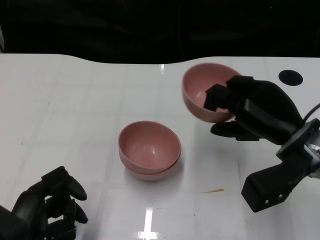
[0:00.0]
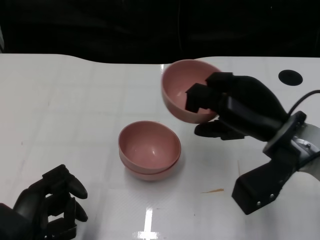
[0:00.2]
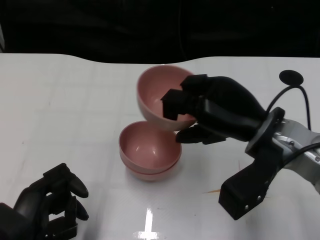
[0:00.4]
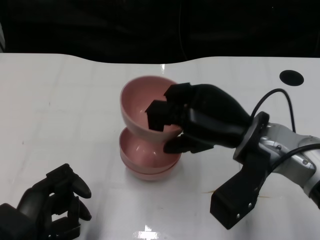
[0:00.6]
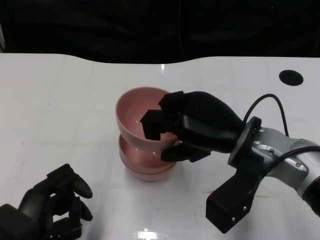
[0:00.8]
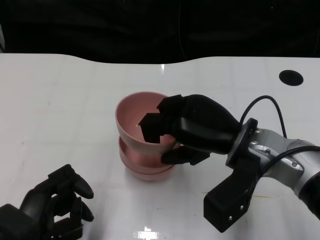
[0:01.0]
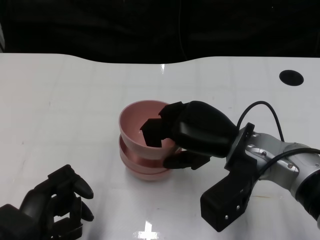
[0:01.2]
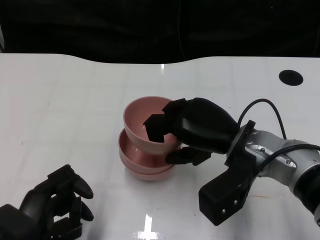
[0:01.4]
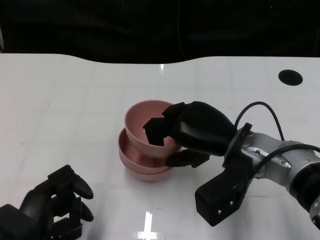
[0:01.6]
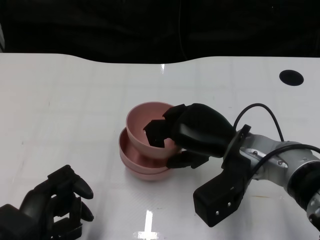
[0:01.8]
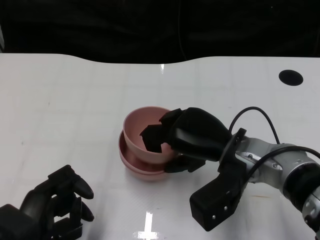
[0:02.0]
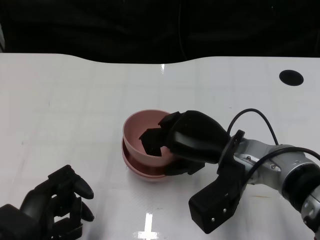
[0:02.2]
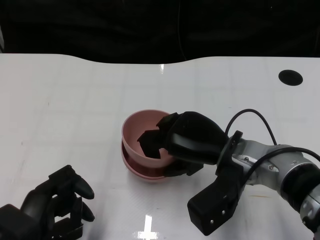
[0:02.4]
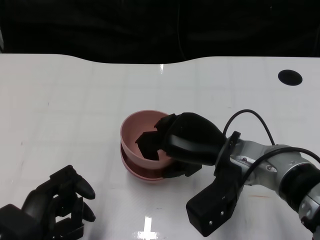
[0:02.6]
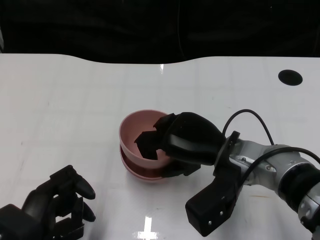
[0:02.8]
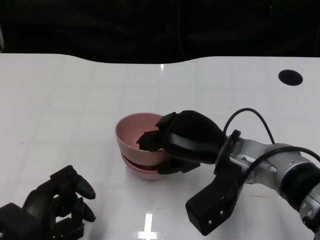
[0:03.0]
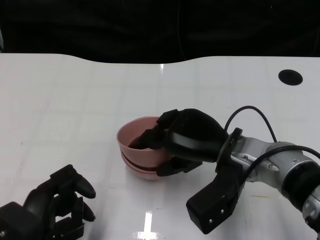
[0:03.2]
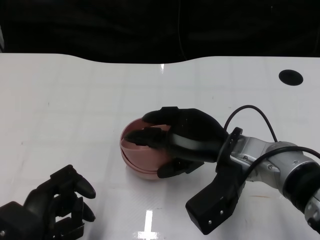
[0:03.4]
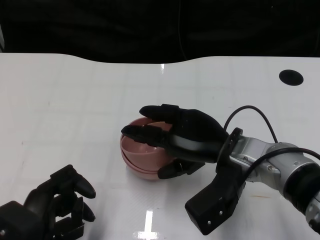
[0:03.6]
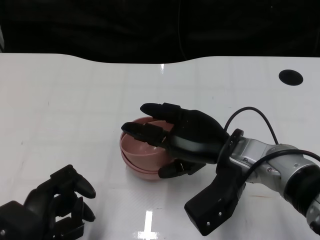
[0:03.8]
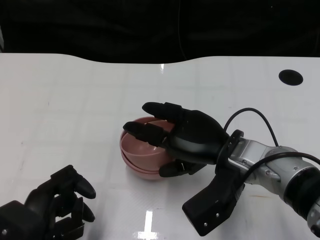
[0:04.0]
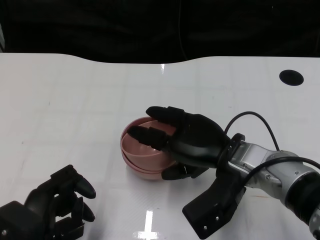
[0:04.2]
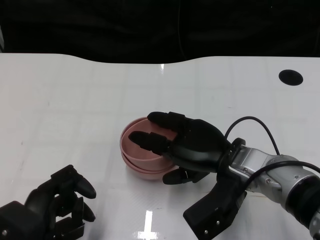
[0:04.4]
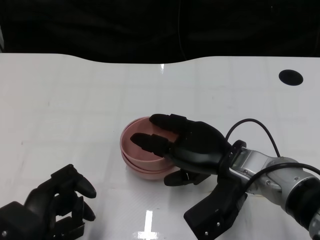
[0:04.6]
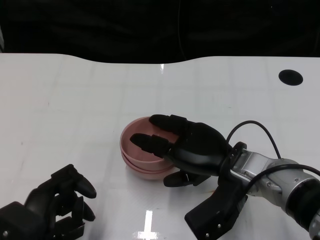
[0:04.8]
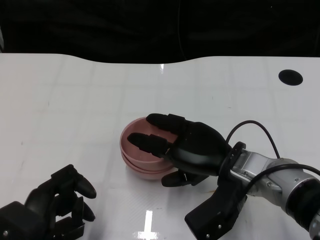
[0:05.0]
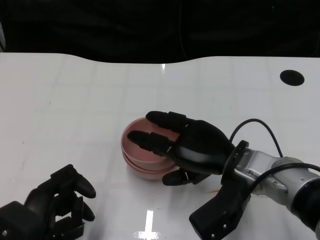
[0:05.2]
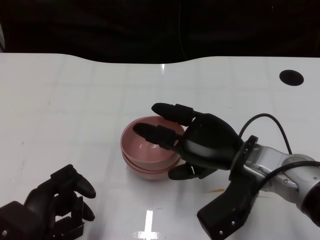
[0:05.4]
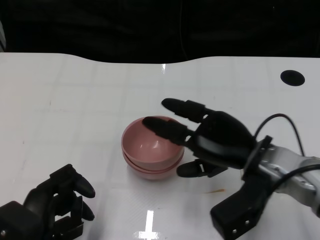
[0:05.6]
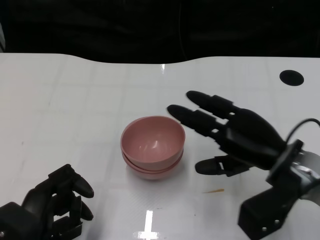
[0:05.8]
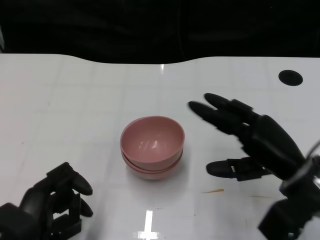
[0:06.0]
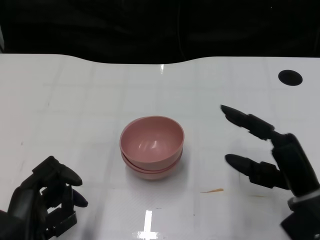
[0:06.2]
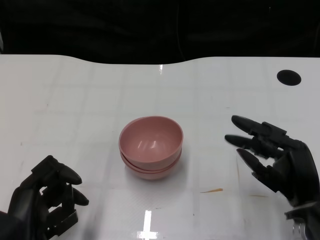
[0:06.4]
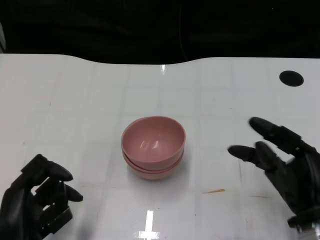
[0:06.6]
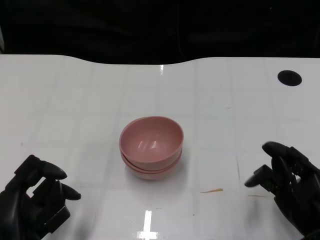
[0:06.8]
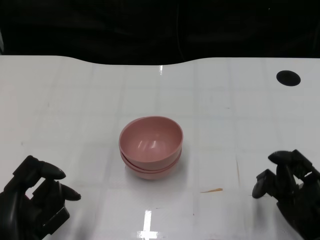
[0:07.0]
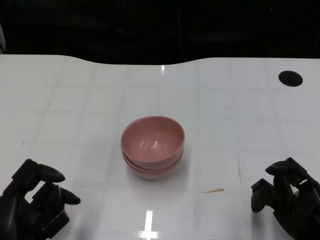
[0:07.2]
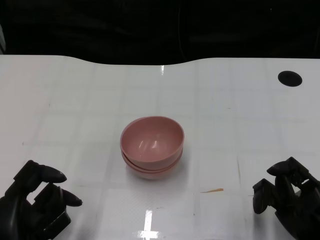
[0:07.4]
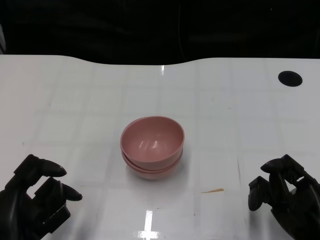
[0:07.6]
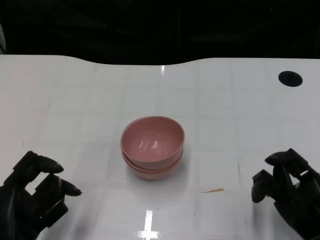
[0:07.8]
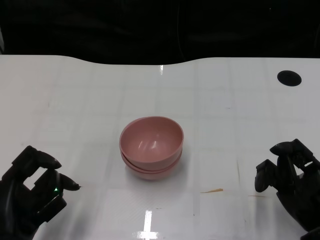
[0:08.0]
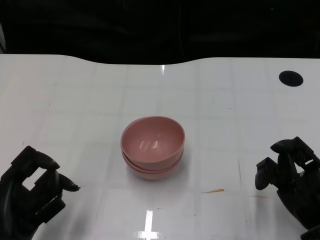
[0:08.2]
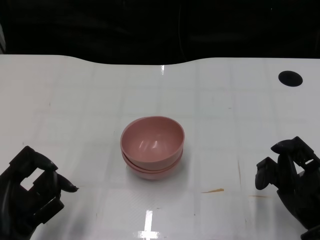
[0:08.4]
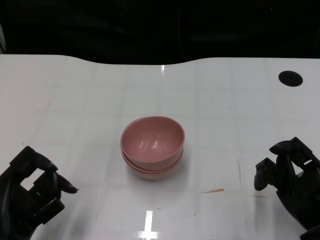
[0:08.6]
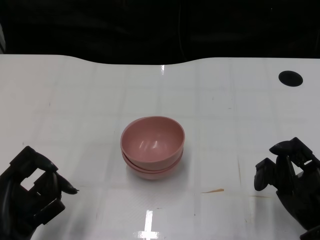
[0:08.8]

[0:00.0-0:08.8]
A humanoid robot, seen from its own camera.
Task of the whole recording: Pick up the bowl on one side of the table and place it on top of the middle bowl, then pick up the bowl on the other side of the table and place it on top of the middle bowls.
Step, 0:00.0 to 0:05.4: Place the bowl on the right onto the bowl in the middle with right gripper.
0:00.0 to 0:01.4: The right hand is displaced to the left by approximately 10 cm.
0:01.4 to 0:04.4: There are only small adjustments of the hands.
0:04.4 to 0:05.8: The right hand moves to the right, about 5 cm.
0:05.8 to 0:07.4: The right hand shifts approximately 15 cm backward, downward and to the right.
0:07.4 to 0:08.8: The hands make only small movements.

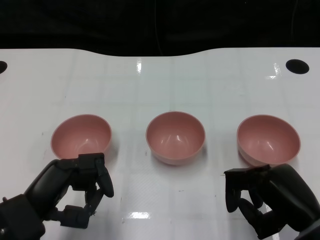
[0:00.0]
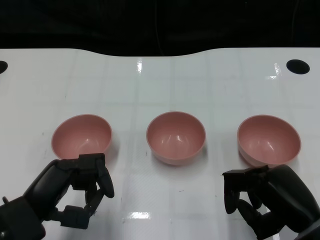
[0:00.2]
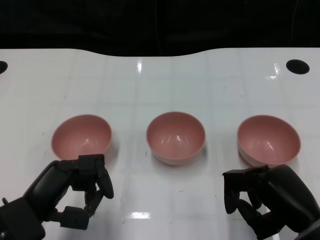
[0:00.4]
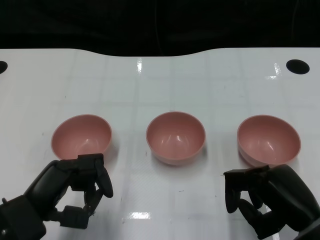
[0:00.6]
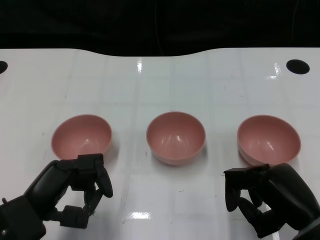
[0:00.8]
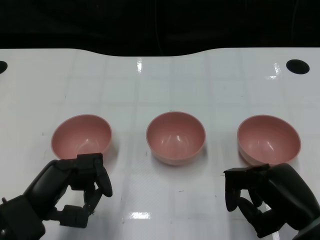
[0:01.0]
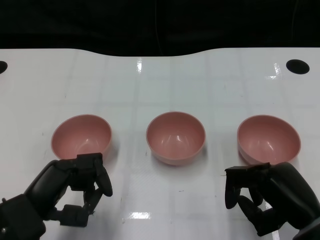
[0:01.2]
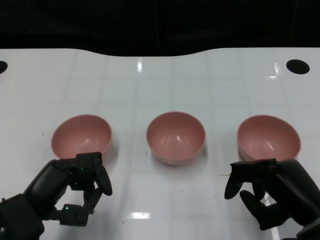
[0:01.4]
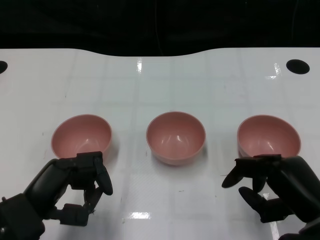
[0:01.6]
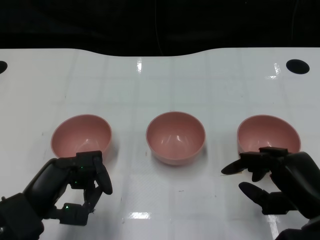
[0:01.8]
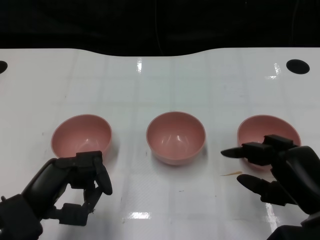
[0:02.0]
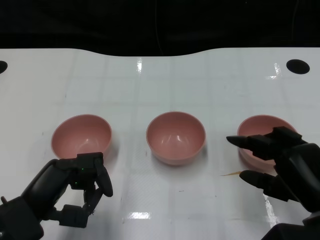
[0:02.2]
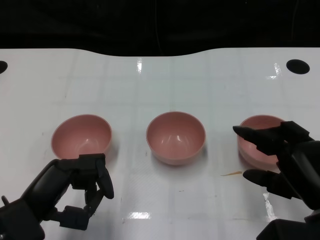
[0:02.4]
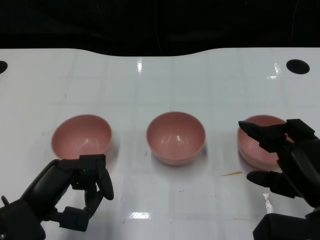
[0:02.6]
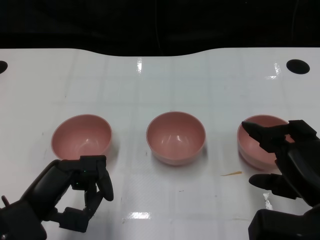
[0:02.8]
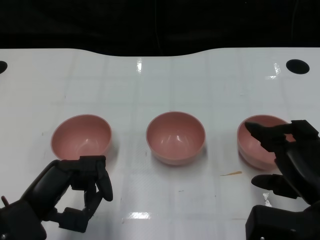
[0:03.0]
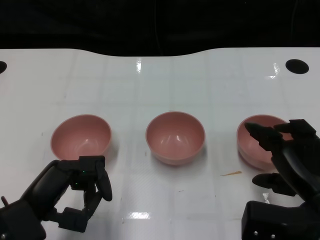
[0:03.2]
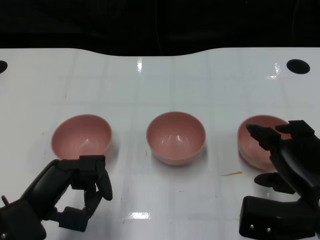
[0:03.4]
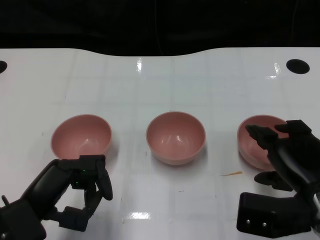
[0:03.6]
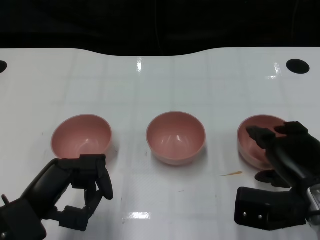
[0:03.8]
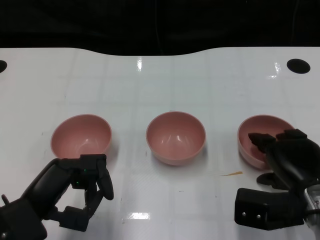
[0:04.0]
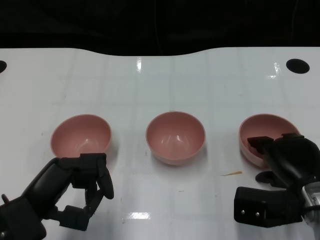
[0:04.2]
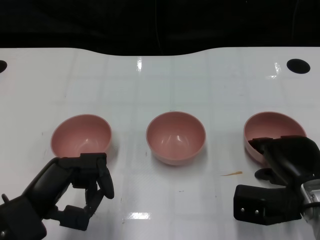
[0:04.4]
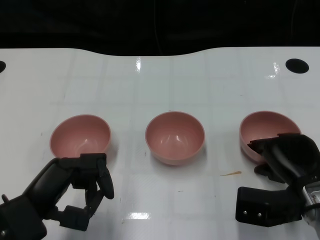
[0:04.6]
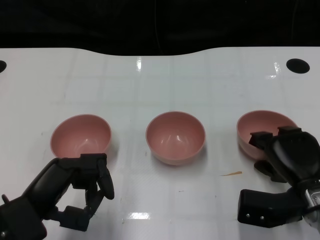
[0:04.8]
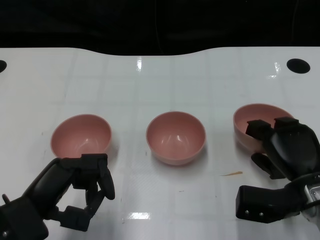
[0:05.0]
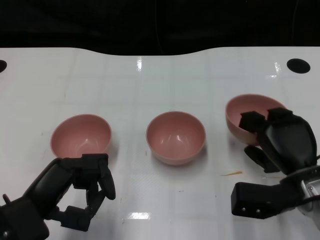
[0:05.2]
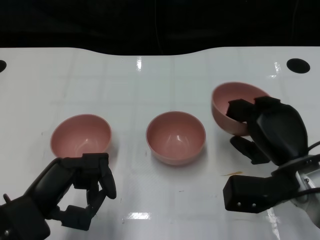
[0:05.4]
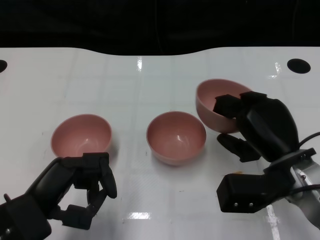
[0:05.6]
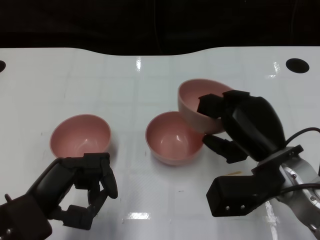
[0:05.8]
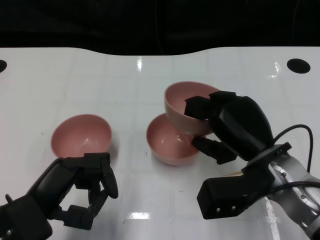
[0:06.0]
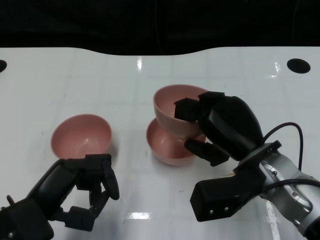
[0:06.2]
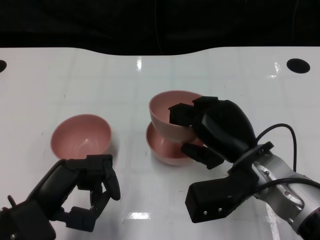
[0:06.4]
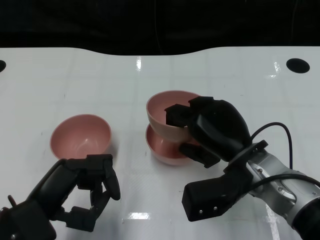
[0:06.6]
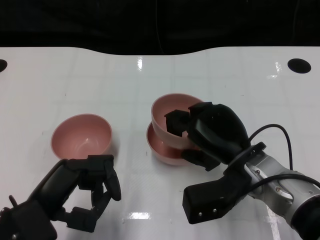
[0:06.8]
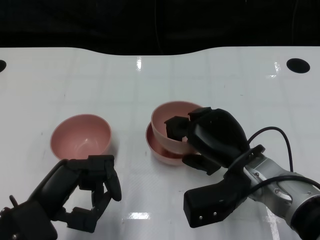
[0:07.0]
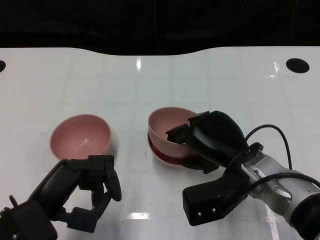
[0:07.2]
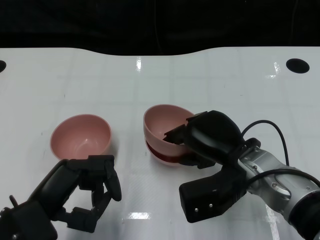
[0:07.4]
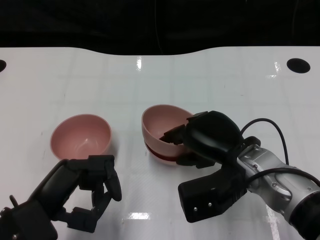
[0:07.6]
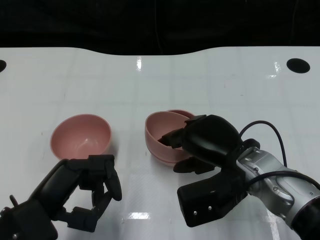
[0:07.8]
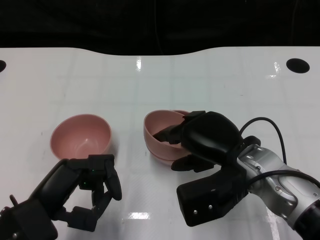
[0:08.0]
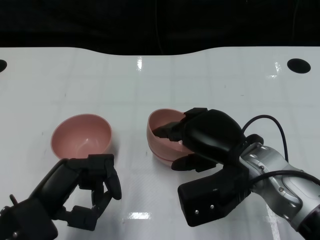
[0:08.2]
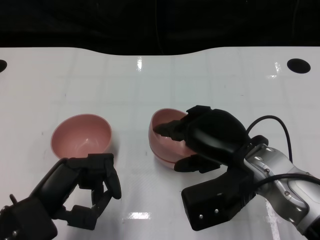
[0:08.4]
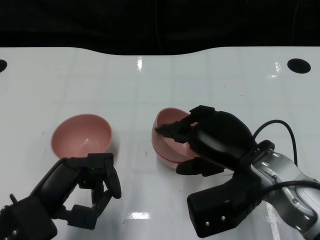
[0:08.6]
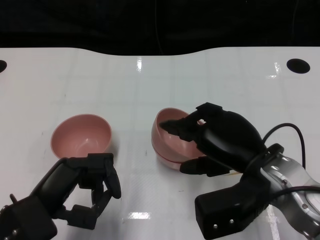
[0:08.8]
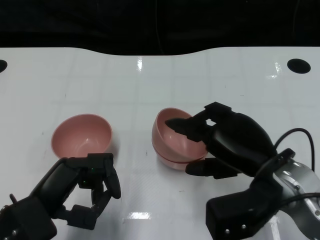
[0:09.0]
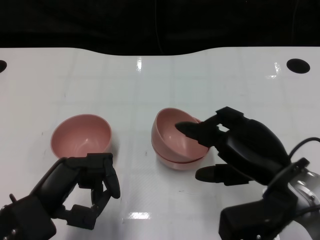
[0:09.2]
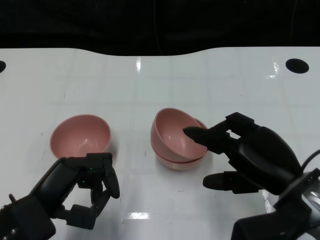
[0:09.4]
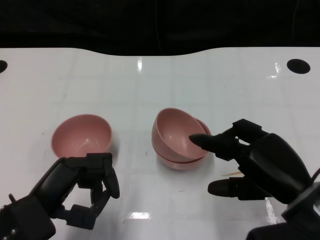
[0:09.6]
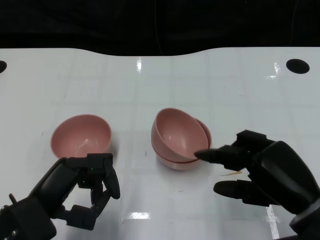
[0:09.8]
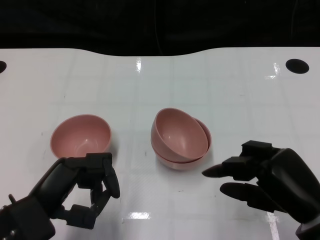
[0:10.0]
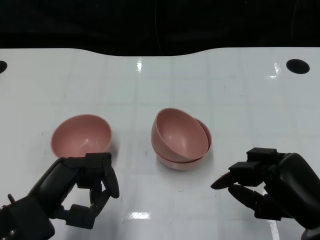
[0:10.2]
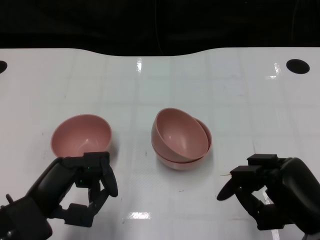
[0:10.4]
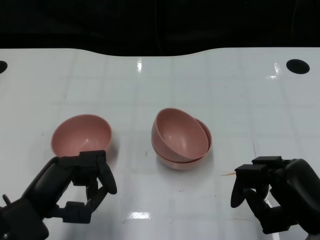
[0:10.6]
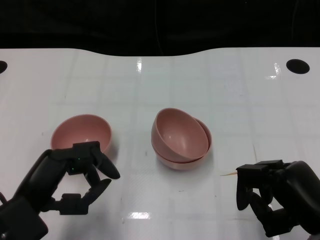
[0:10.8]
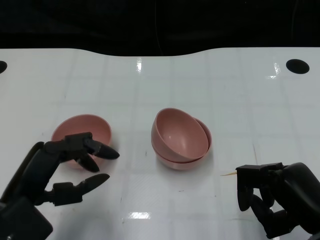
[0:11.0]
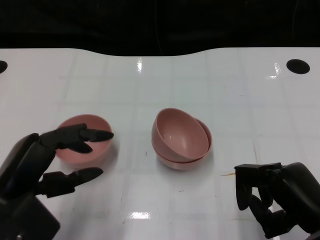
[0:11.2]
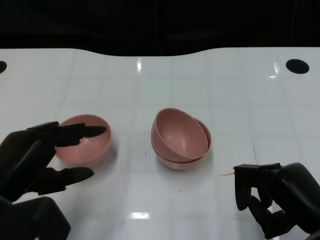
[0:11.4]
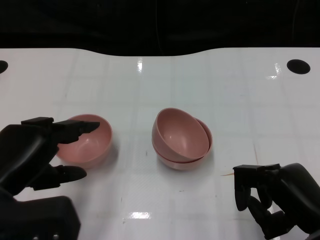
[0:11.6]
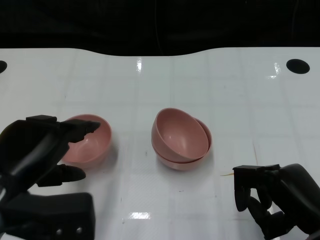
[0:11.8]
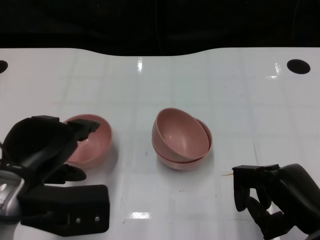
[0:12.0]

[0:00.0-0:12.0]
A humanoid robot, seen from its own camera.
Task of the whole recording: Pick up the bowl on one side of the table and place it on top of the middle bowl, then pick up the bowl on the other side of the table and place it on top of the middle bowls.
Step, 0:01.4 to 0:04.8: Grasp the bowl on the right with the right gripper.
Step, 0:05.2 to 0:09.2: Place the bowl on the right onto the bowl in the middle with right gripper.
0:03.0 to 0:04.4: The right hand is displaced forward and downward by about 10 cm.
0:04.4 to 0:06.0: The right hand travels to the left and upward by about 10 cm.
0:07.6 to 0:09.0: The right hand changes place by about 5 cm.
0:09.0 to 0:10.4: The right hand heads backward and to the right, covering roughly 10 cm.
0:10.4 to 0:12.0: The left hand is displaced upward by about 5 cm.

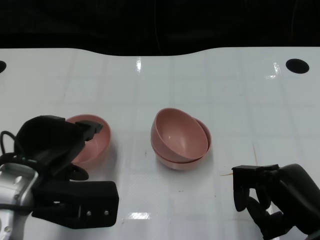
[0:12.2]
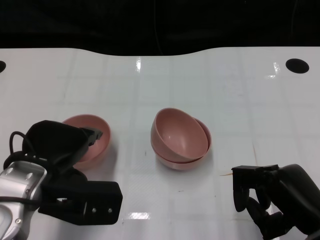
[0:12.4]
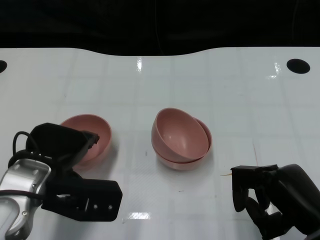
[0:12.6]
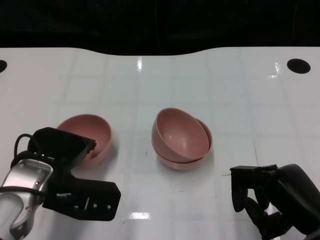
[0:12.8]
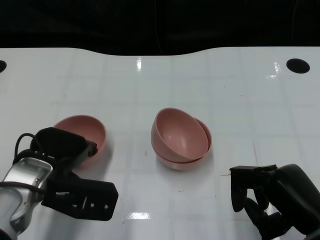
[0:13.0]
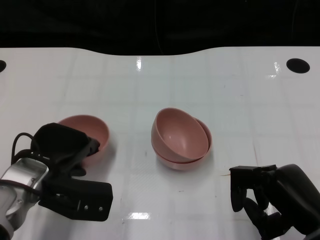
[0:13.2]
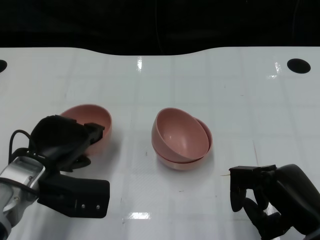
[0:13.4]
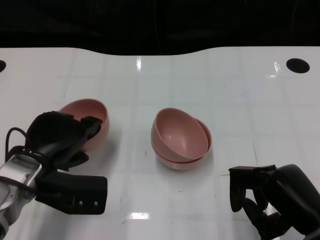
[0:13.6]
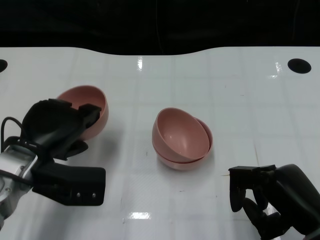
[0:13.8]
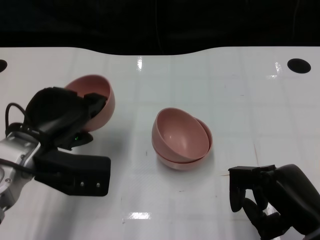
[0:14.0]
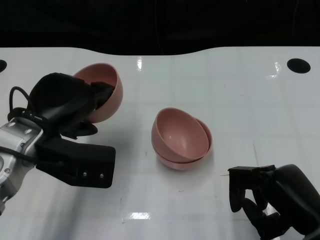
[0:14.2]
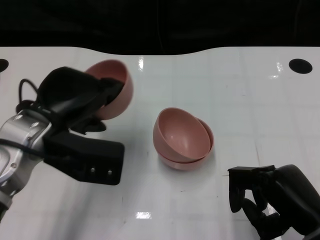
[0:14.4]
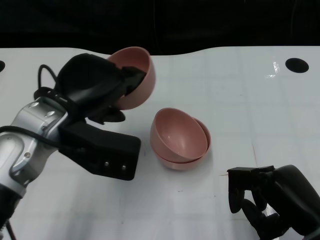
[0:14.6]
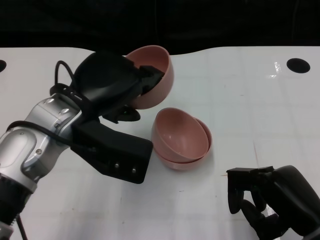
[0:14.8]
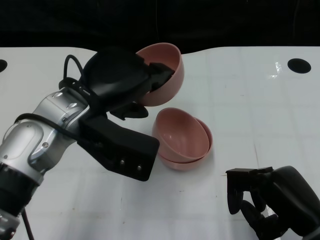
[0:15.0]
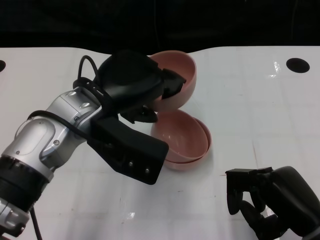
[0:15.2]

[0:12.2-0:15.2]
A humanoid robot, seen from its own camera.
Task of the whole recording: Pick up the bowl on one side of the table and place it on top of the middle bowl, then pick up the bowl on the other side of the table and place it on top of the middle bowls.
0:12.2 to 0:13.8: The left hand shifts approximately 5 cm forward.
0:13.8 to 0:15.2: The left hand goes about 15 cm upward and to the right.
